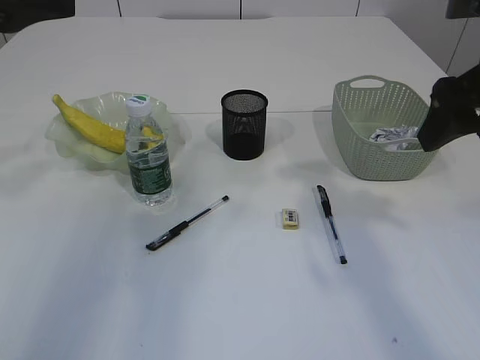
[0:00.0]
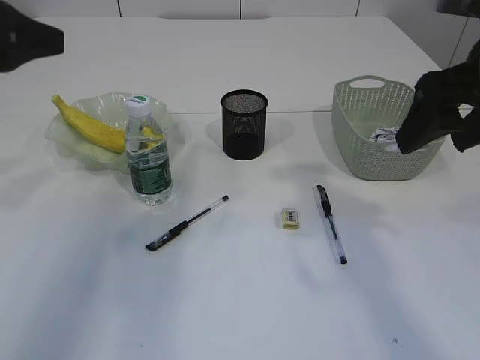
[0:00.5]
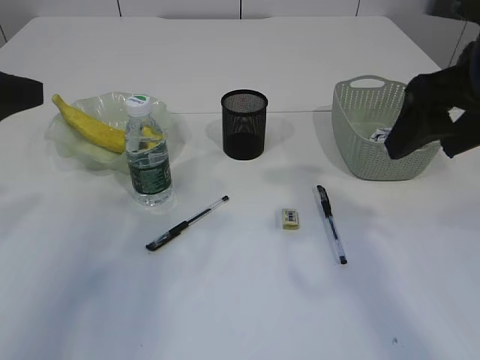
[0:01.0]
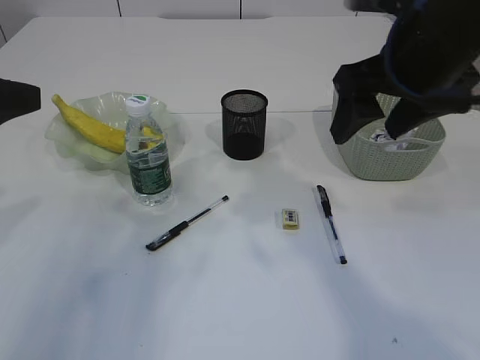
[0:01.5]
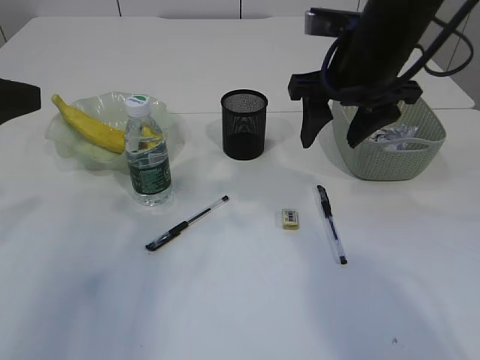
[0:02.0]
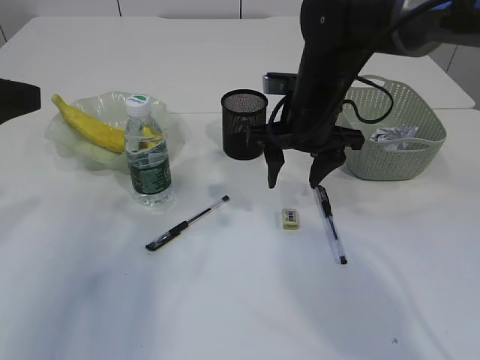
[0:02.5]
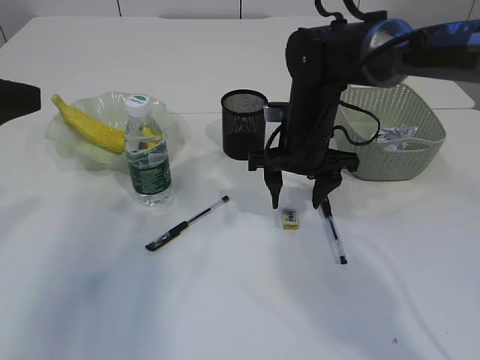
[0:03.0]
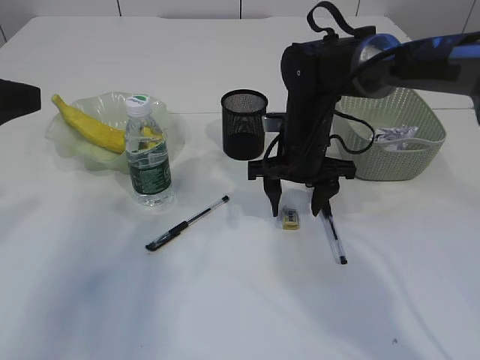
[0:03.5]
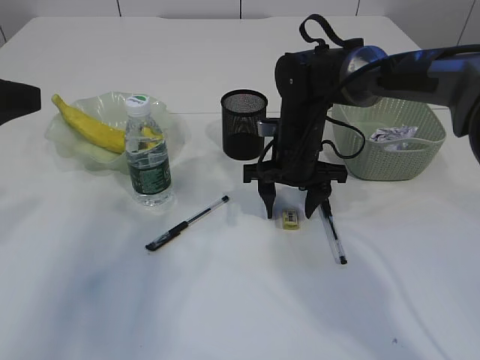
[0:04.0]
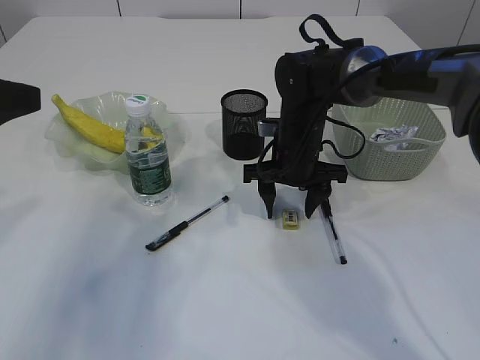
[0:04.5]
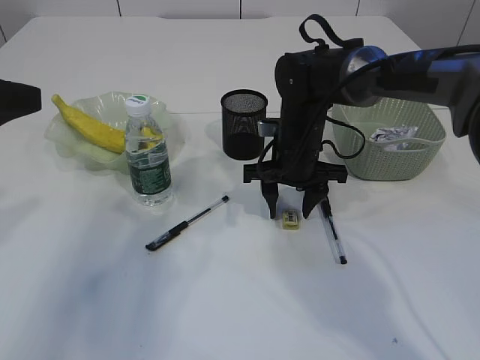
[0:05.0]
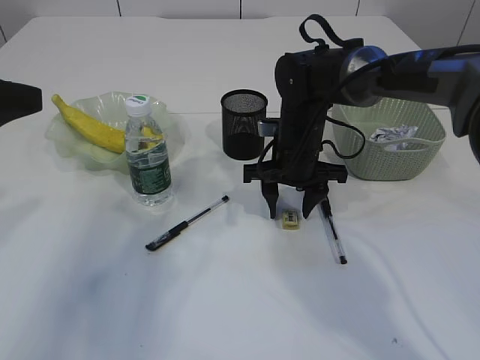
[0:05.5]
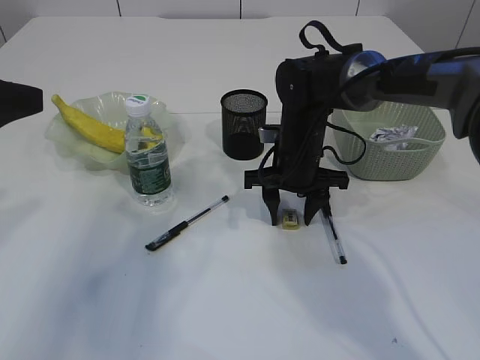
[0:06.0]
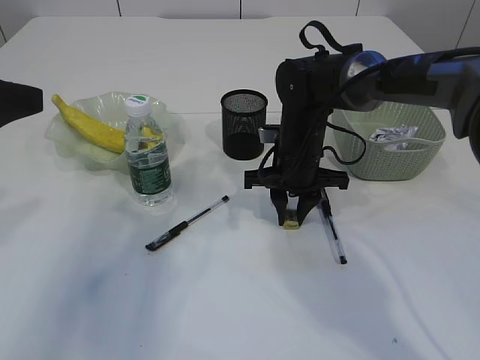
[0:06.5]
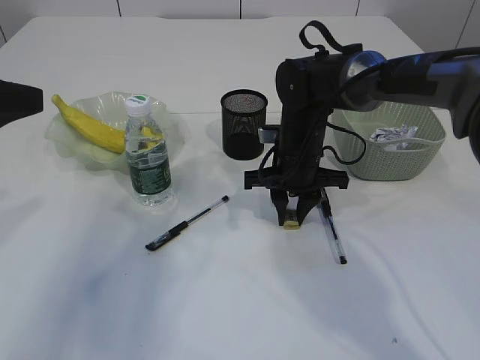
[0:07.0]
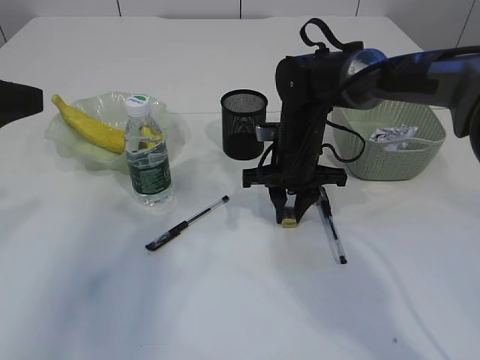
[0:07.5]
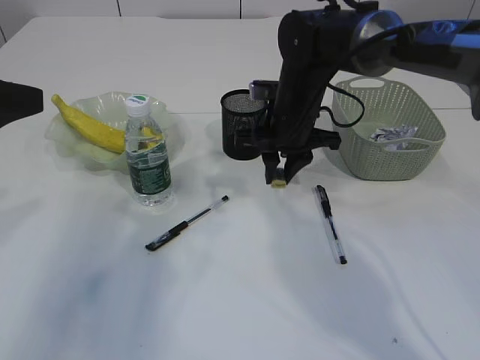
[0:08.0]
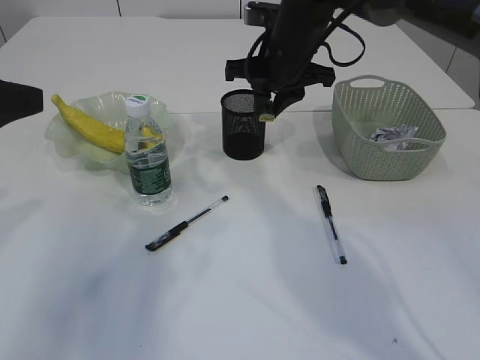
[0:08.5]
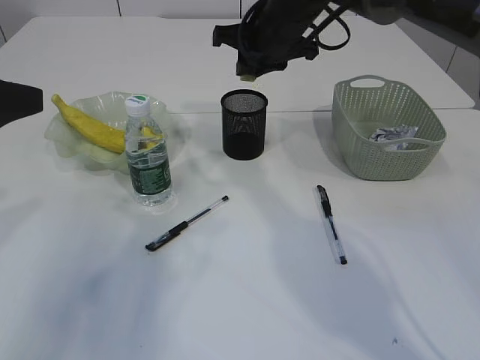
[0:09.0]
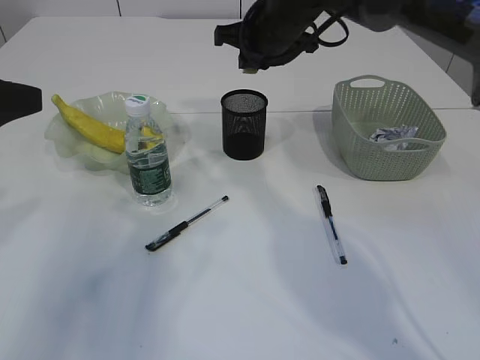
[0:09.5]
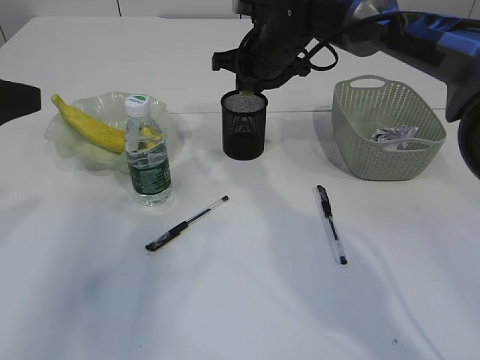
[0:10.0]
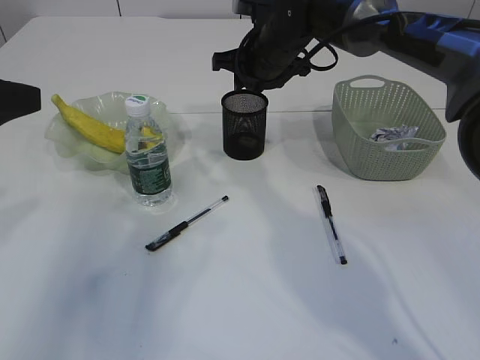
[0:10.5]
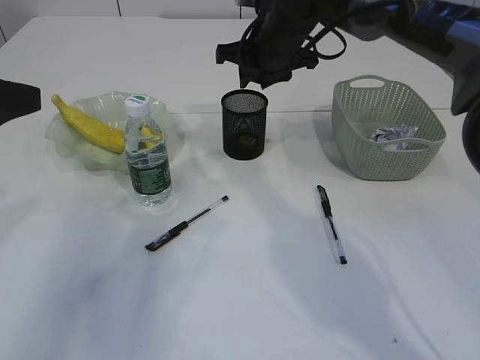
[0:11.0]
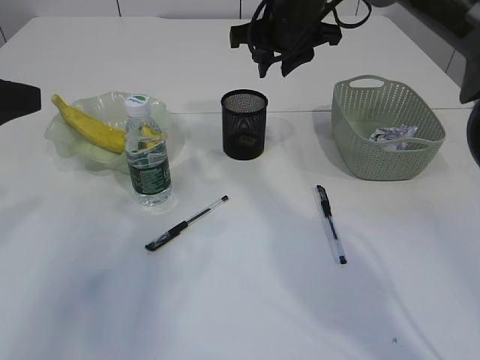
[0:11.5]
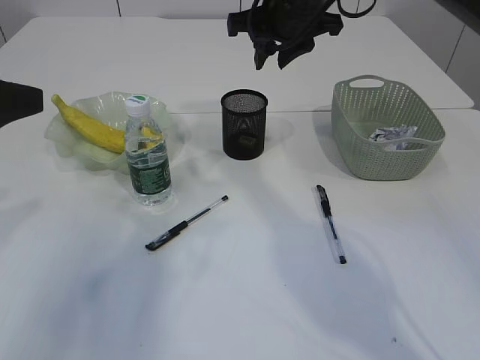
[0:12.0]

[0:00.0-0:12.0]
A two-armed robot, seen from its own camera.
Step, 0.0 to 7.5 s: Pick up the eraser.
Step, 8.0 to 12.0 s: Place the eraser into the pen holder.
0.0 to 2.0 s: The right gripper heads to the left and forward, covering some 15 cm. Meanwhile the left gripper is displaced backward and downward by about 10 cm.
2.0 to 4.0 s: The right gripper travels downward by roughly 15 cm.
4.0 to 6.0 s: Both grippers stay about where they are.
6.0 to 8.0 s: The right gripper closes.
8.0 to 10.0 s: The right gripper goes about 10 cm forward and upward.
10.0 to 12.0 s: The right gripper is displaced upward by approximately 5 cm.

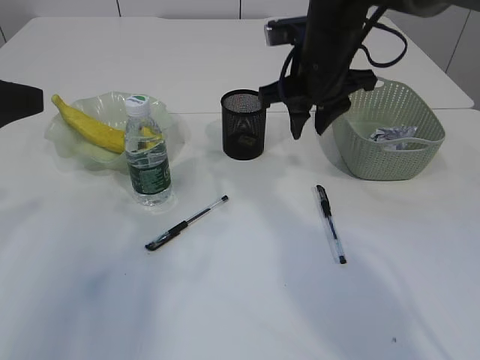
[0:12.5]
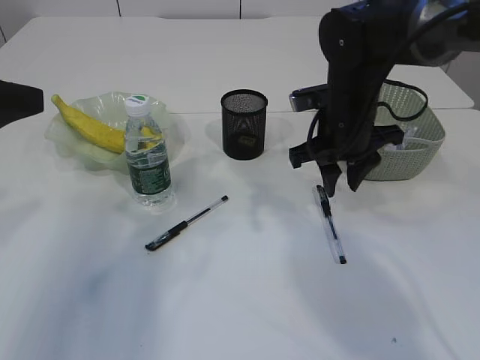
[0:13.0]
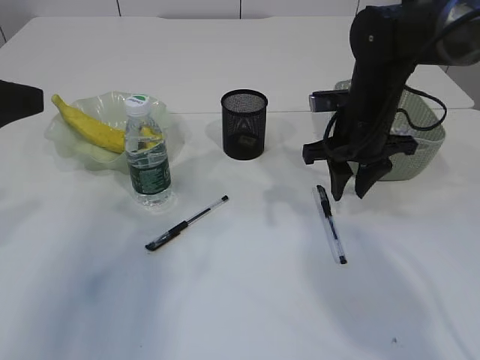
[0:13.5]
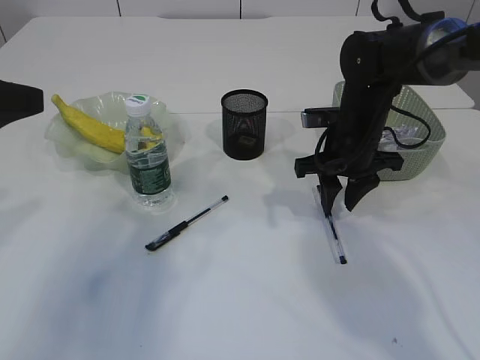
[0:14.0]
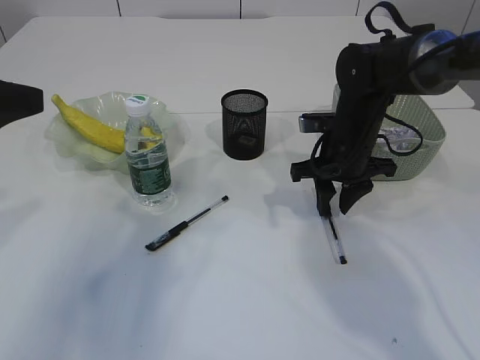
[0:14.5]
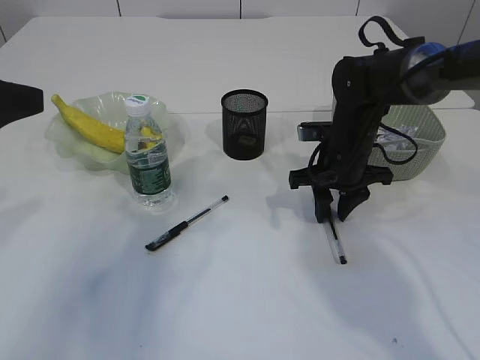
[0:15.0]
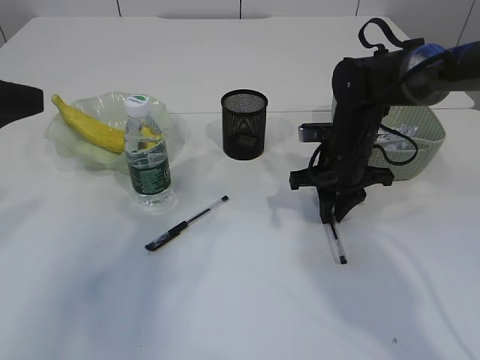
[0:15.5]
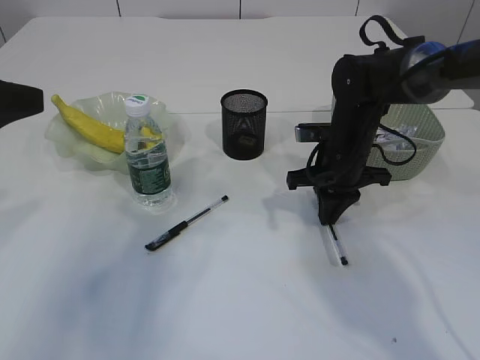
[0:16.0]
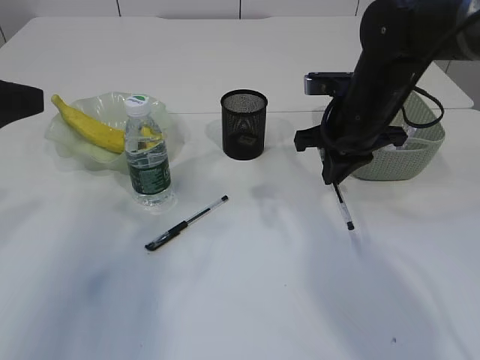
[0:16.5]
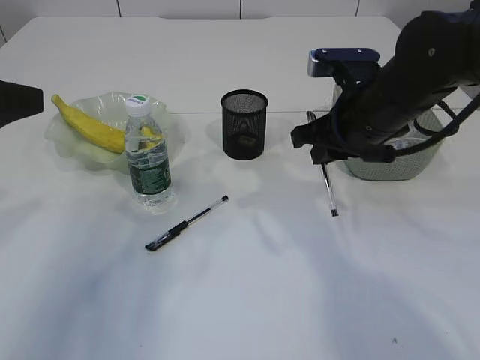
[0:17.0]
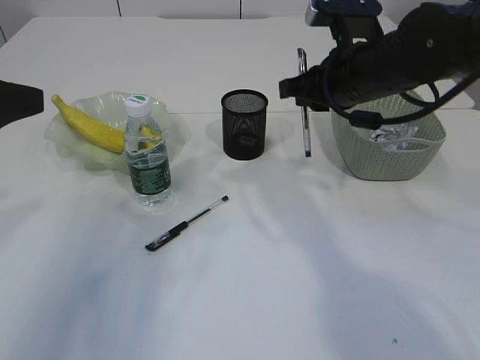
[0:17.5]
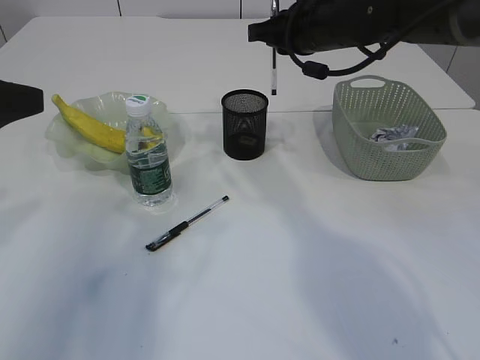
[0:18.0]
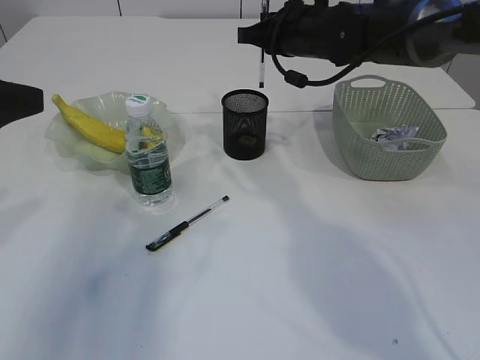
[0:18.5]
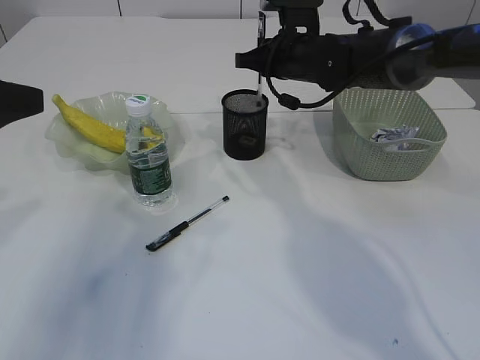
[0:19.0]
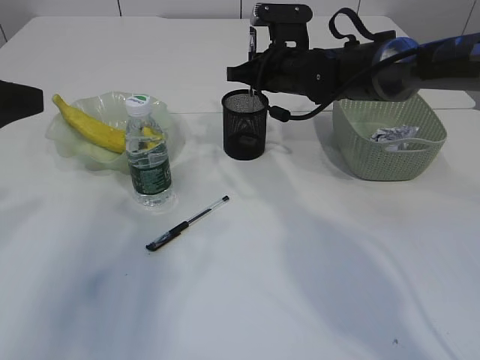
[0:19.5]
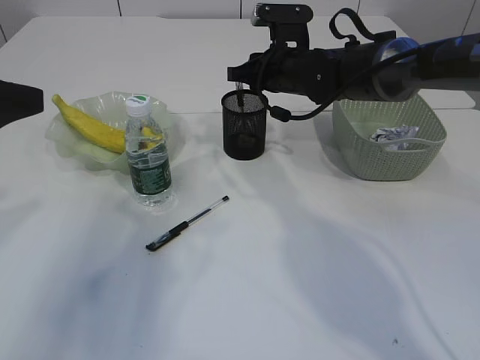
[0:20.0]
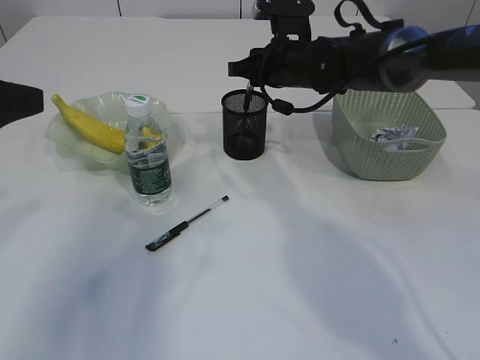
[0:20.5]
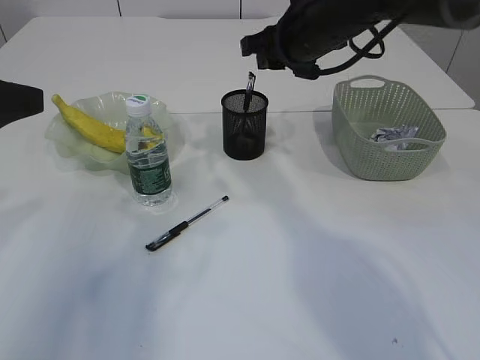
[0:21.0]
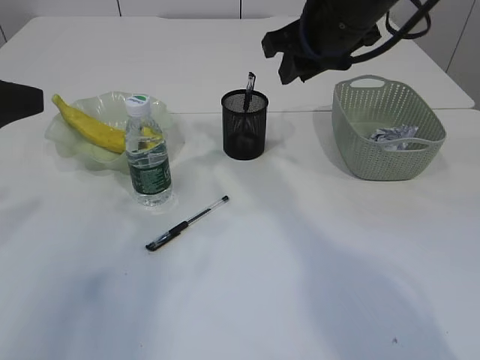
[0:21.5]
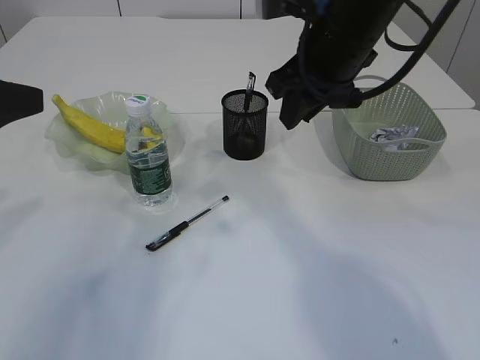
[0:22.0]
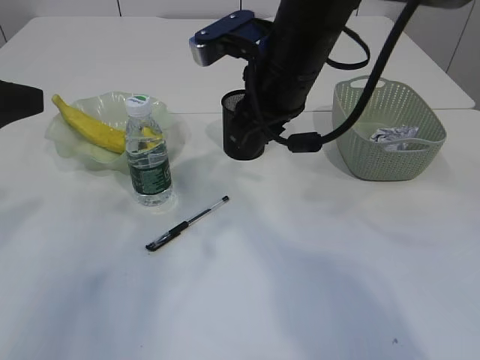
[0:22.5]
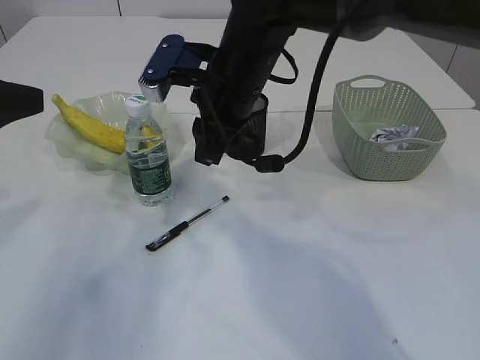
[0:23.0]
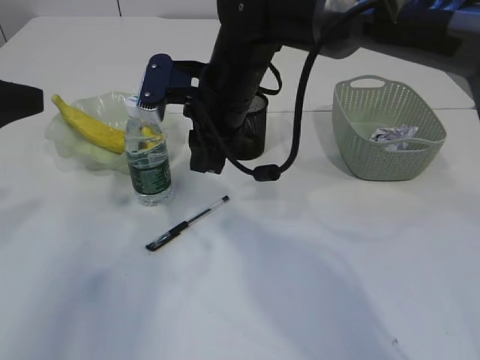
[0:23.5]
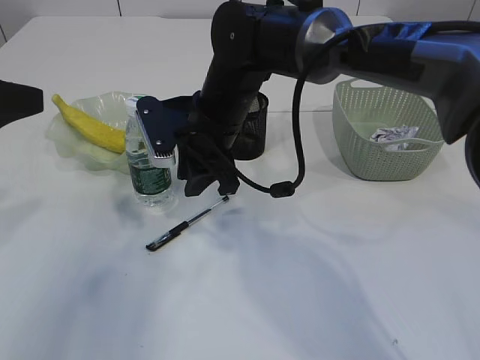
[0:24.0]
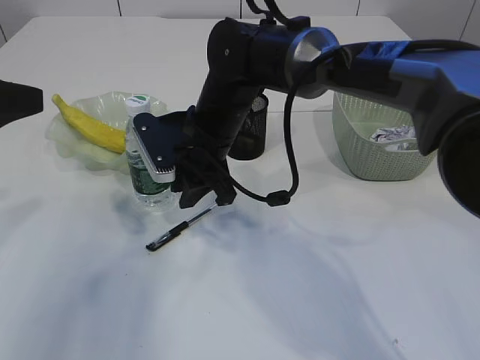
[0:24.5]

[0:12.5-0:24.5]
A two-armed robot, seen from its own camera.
Step, 12.5 to 16.5 s: Pick up the pen with right arm.
Step, 17.0 to 20.5 s: Place the pen into the pen holder.
12.5 to 14.5 s: The right gripper goes approximately 15 cm downward and to the right.
14.5 to 16.5 s: The right gripper travels upward by approximately 5 cm, and closes.
16.5 to 18.5 s: The right gripper travels forward and upward by about 10 cm.
18.5 to 20.5 s: The grippers make only small movements.
20.5 to 22.5 s: The right gripper shifts some 15 cm backward and upward.
22.5 to 24.5 s: The right gripper moves downward and to the left, approximately 10 cm.

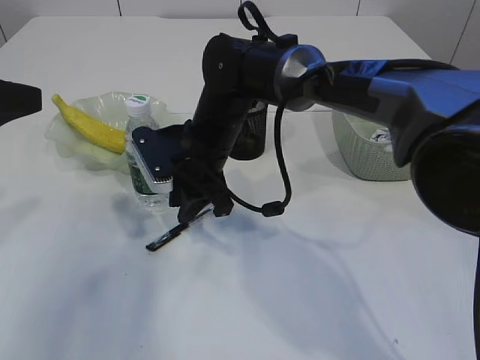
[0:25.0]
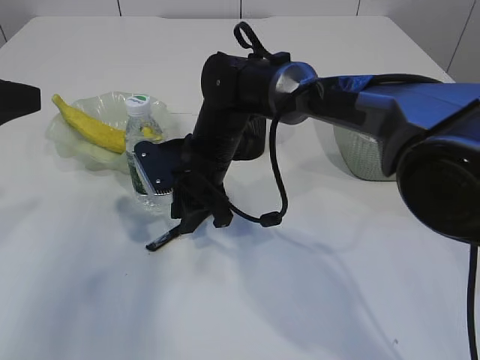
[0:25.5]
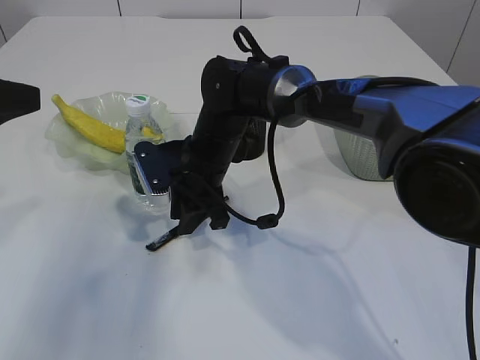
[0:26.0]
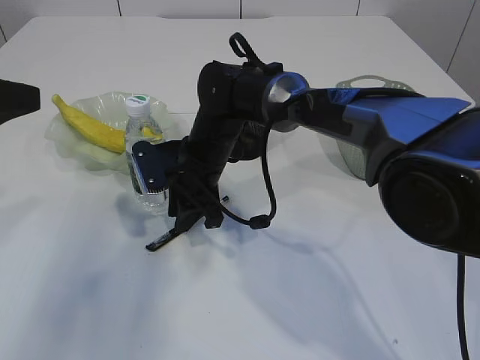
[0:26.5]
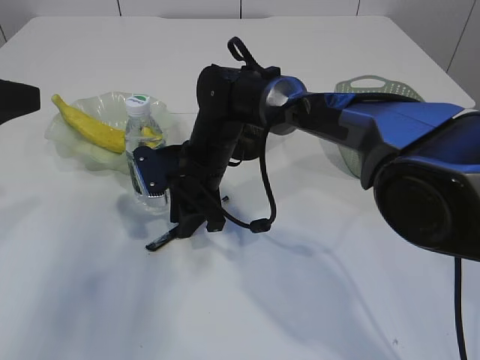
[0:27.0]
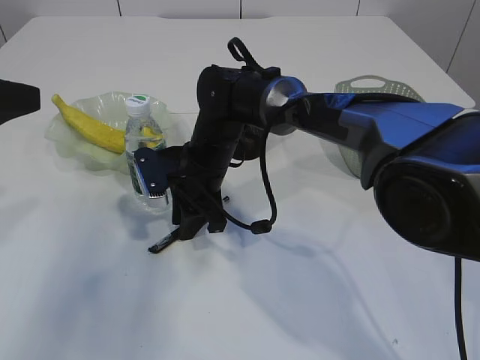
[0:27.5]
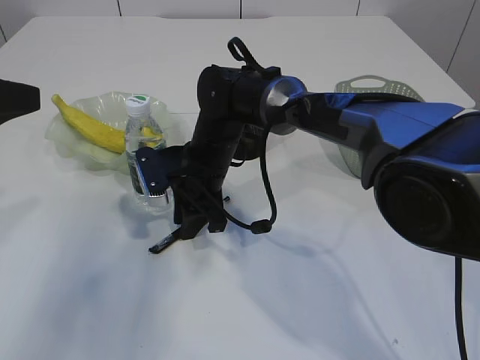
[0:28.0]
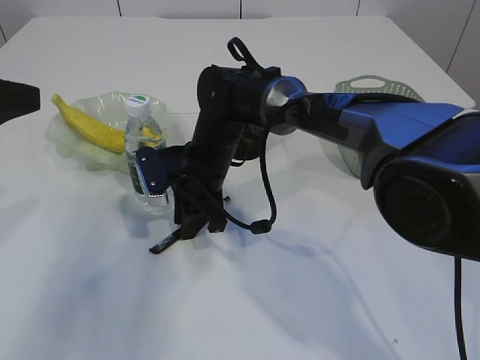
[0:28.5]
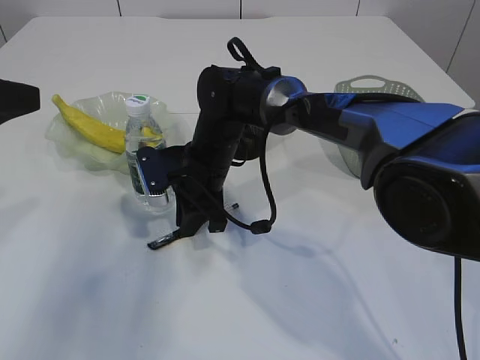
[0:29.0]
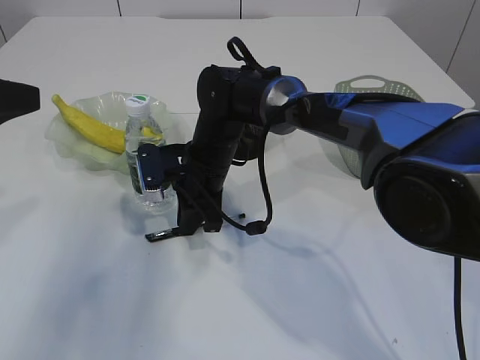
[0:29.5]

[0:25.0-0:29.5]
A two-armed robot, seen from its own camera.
25.0 to 29.5 s: There are only small adjustments of the grippers.
